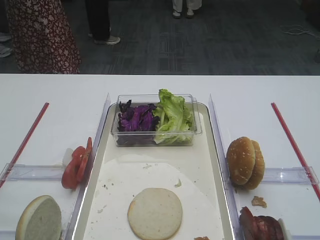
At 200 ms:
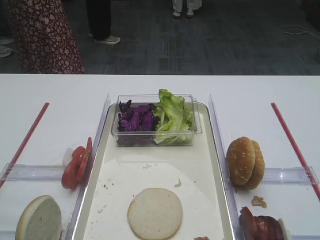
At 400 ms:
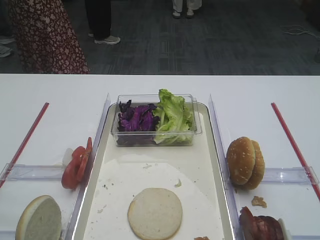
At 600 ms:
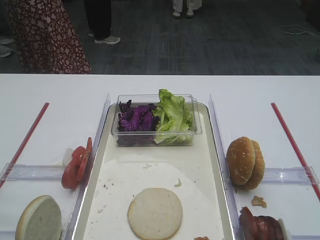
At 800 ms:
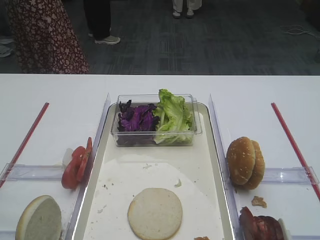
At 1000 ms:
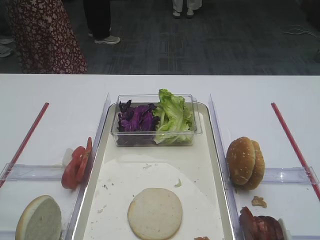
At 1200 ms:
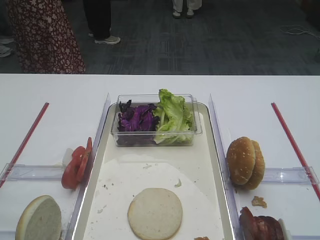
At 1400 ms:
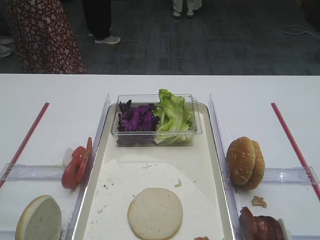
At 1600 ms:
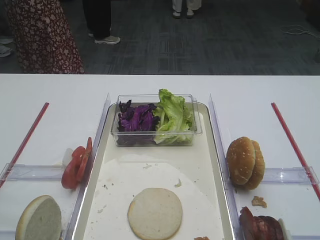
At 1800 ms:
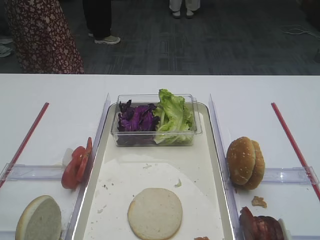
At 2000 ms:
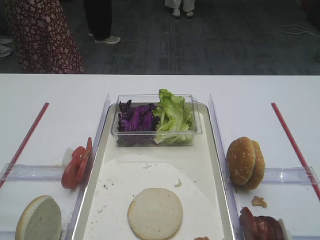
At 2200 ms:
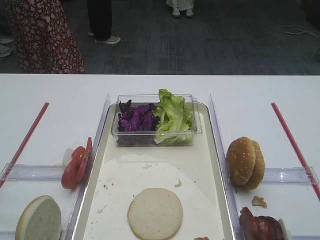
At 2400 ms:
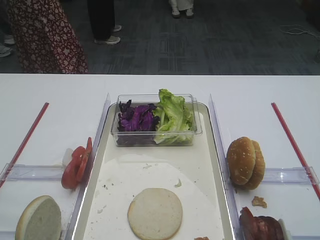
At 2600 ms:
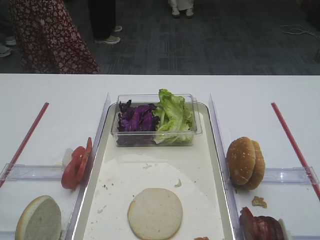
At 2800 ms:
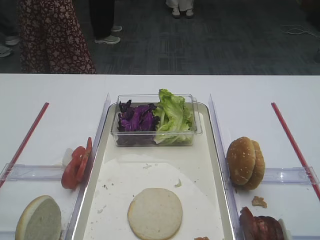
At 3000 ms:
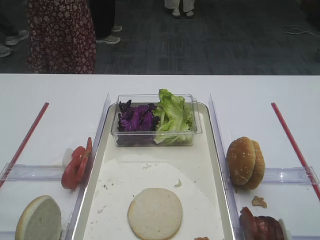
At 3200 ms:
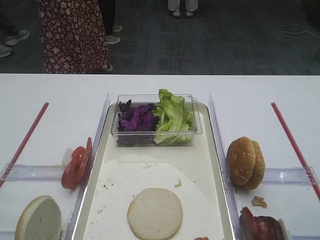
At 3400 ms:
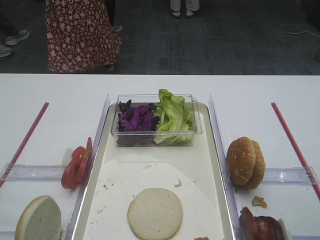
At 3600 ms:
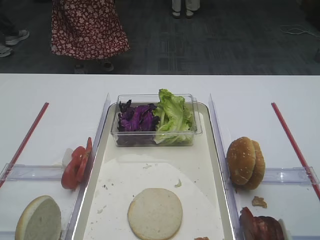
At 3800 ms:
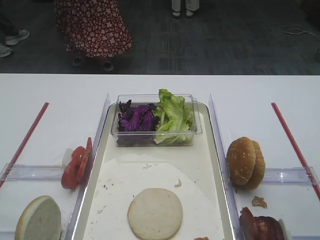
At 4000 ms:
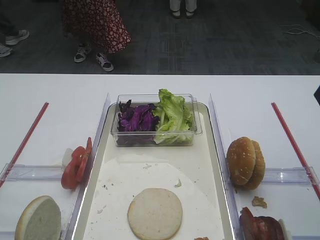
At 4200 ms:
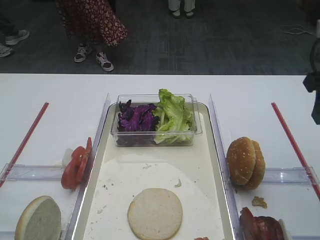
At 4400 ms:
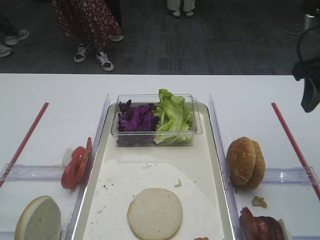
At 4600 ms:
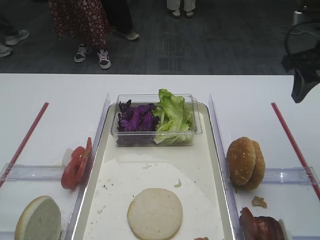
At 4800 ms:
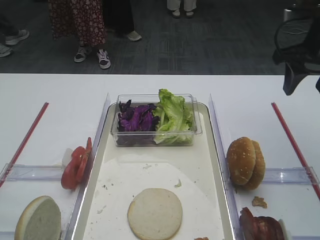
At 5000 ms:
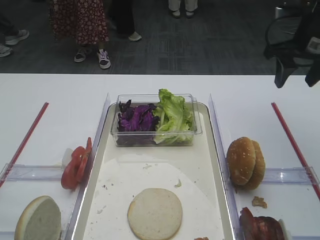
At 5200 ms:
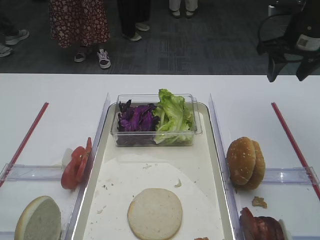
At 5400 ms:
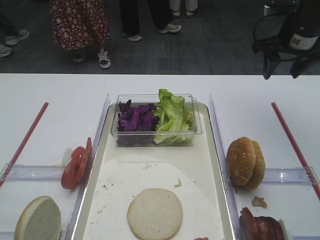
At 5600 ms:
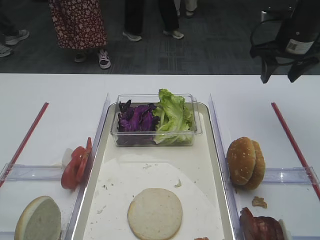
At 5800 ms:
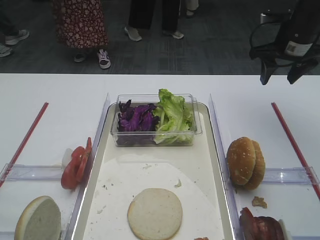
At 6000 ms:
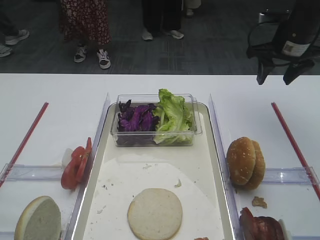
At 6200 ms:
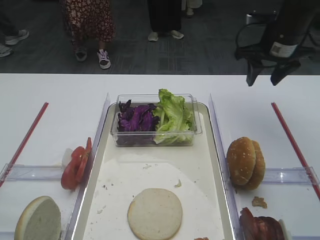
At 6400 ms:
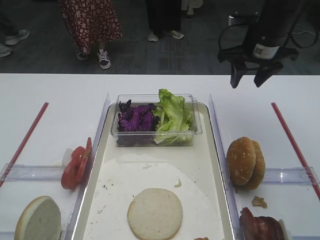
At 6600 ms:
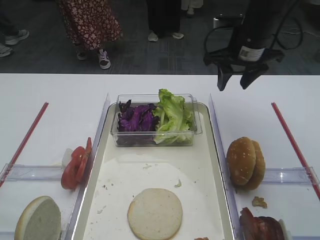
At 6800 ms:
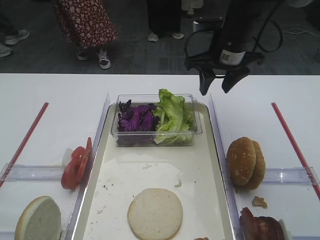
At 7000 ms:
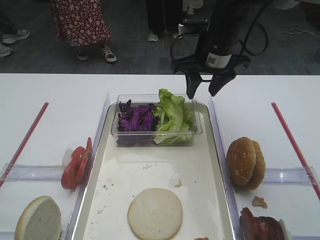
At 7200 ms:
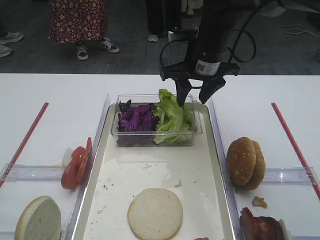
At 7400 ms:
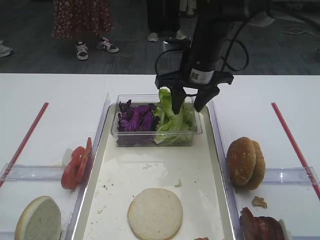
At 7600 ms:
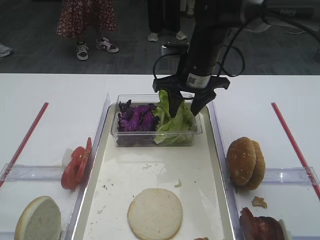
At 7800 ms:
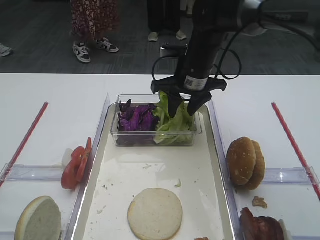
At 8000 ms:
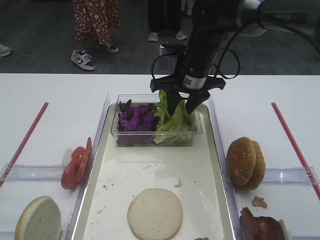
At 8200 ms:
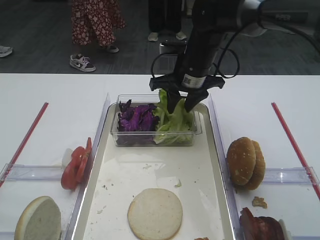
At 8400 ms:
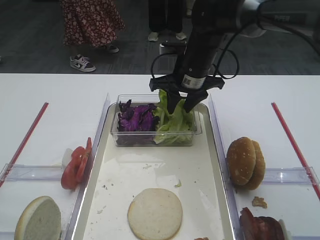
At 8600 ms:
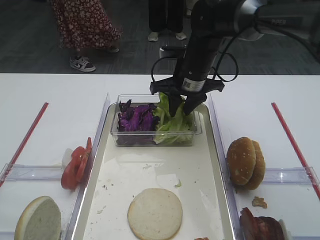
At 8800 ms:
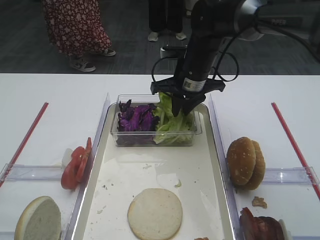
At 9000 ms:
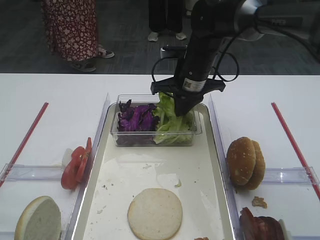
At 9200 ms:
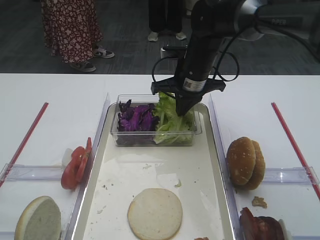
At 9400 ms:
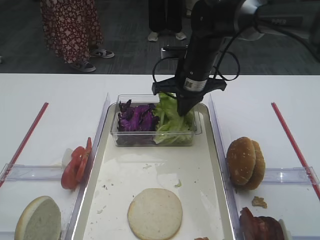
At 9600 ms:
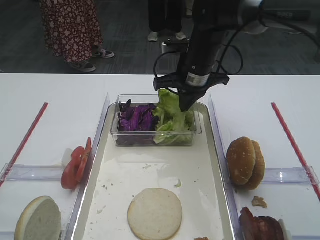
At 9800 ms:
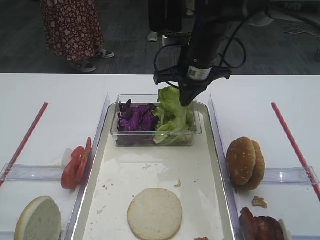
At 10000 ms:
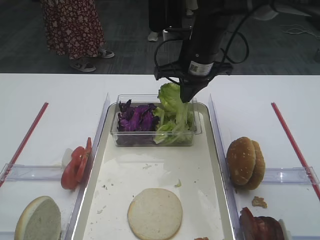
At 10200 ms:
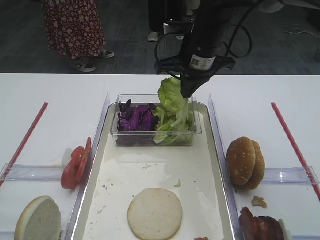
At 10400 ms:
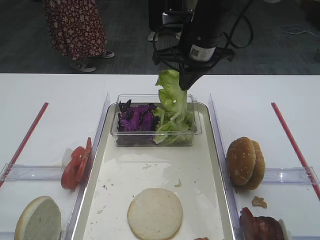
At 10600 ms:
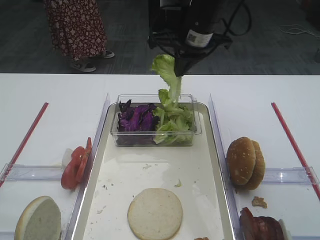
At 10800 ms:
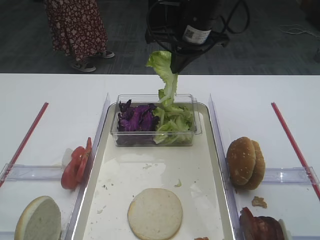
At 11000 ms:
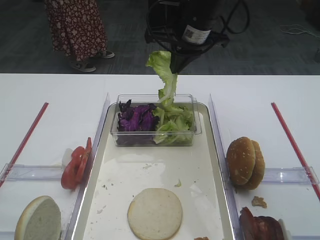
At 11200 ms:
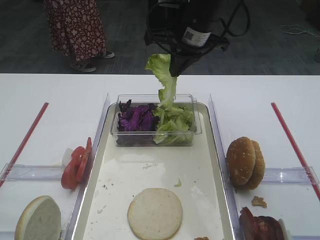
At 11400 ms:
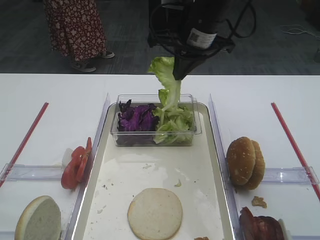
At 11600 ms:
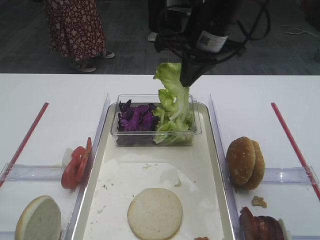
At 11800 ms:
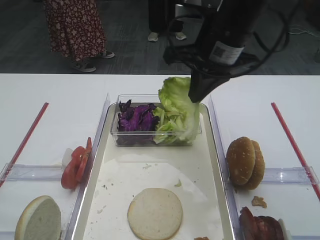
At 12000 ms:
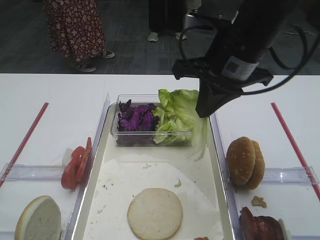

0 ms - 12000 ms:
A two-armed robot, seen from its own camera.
Step, 0 ms - 10600 ms: Pick up the lettuce leaf with the right gripper.
3000 ms - 4400 ms: The right gripper shifts approximately 20 cm forward.
4400 ms - 6000 ms: The right gripper is displaced forward by about 15 cm.
6000 ms - 7600 ms: The right gripper heads to the left, covering some 20 cm.
7600 ms - 9000 ms: The right gripper closes up.
9000 ms - 10400 ms: The right gripper moves upward, about 5 cm.
10400 ms - 12000 ms: The right gripper heads backward, covering some 10 cm.

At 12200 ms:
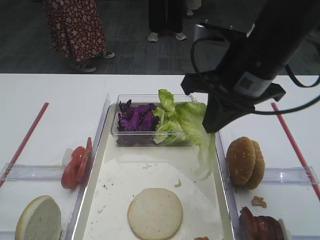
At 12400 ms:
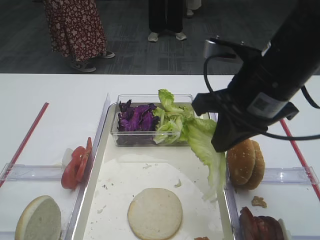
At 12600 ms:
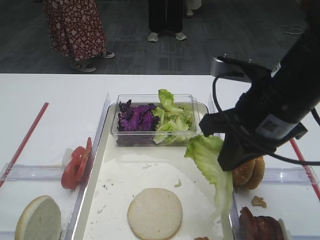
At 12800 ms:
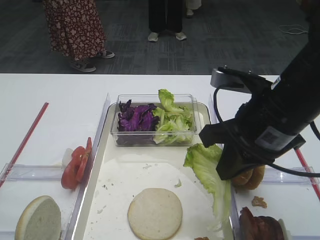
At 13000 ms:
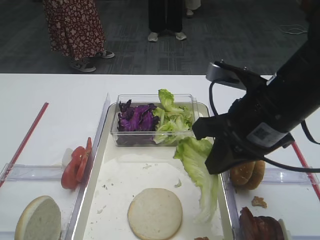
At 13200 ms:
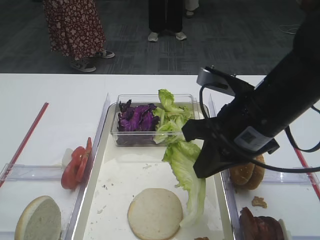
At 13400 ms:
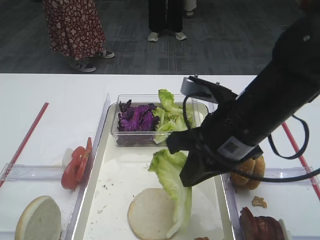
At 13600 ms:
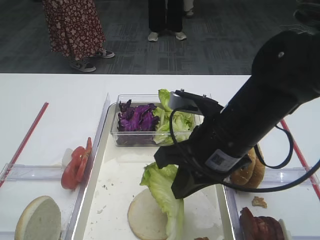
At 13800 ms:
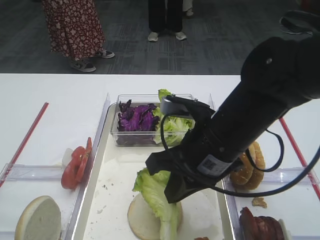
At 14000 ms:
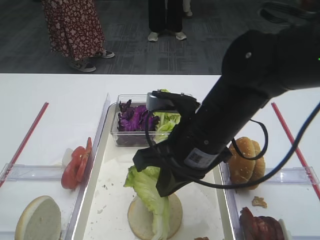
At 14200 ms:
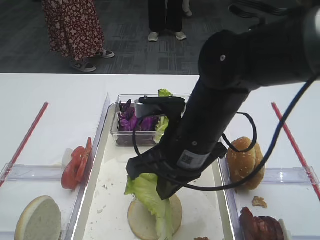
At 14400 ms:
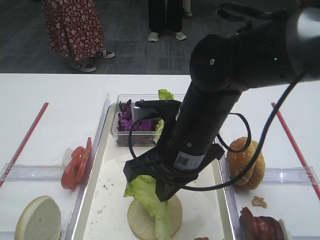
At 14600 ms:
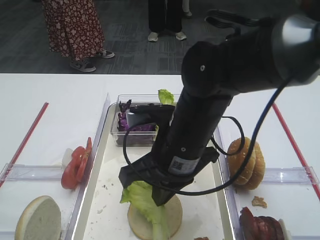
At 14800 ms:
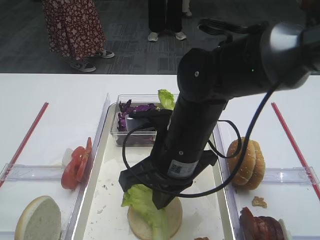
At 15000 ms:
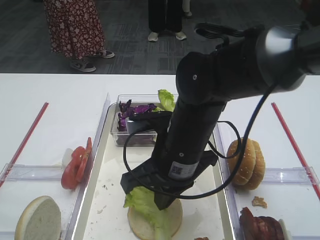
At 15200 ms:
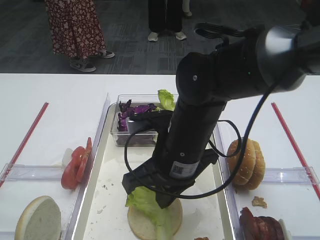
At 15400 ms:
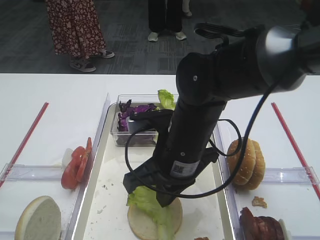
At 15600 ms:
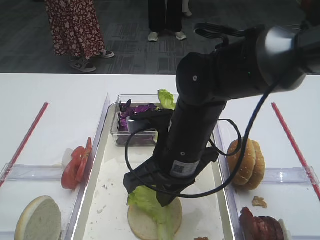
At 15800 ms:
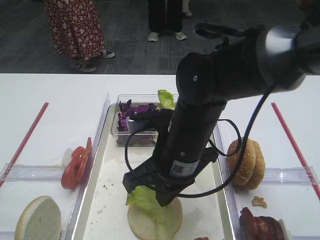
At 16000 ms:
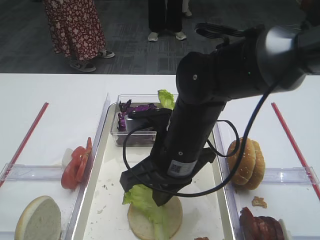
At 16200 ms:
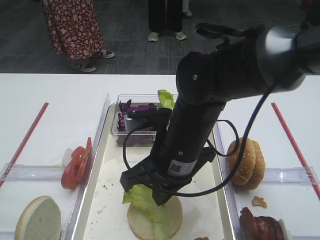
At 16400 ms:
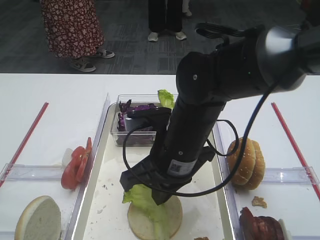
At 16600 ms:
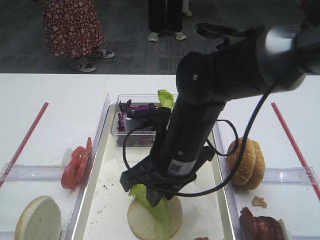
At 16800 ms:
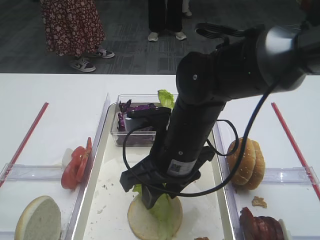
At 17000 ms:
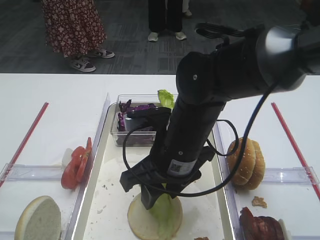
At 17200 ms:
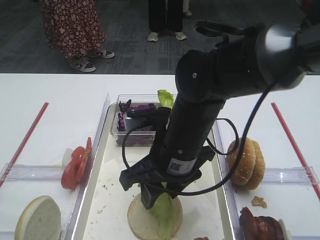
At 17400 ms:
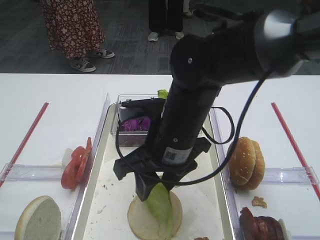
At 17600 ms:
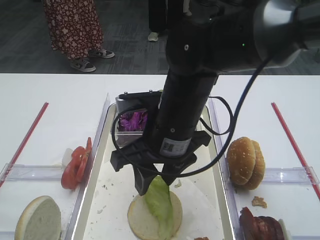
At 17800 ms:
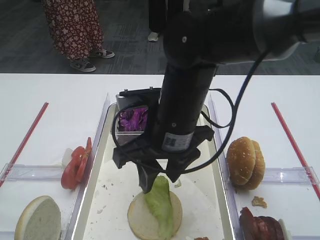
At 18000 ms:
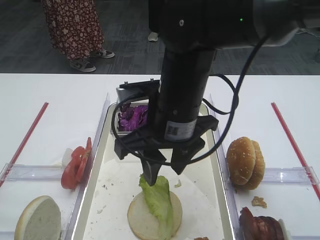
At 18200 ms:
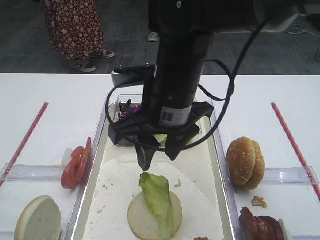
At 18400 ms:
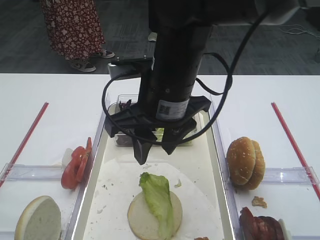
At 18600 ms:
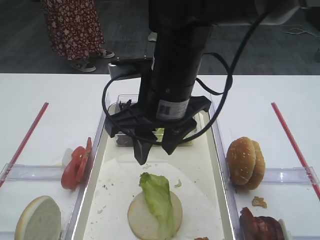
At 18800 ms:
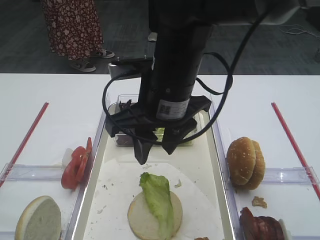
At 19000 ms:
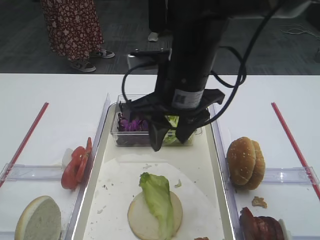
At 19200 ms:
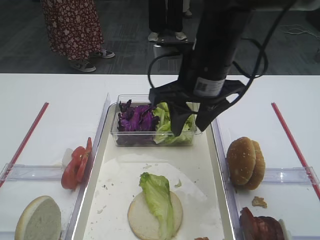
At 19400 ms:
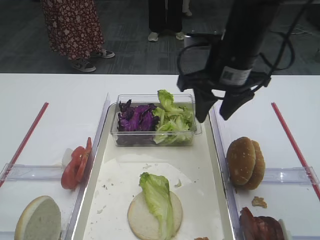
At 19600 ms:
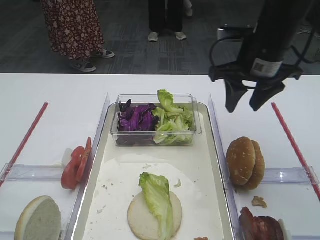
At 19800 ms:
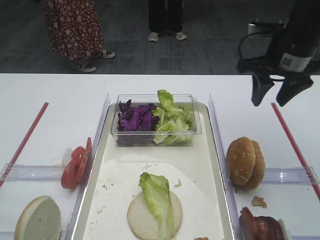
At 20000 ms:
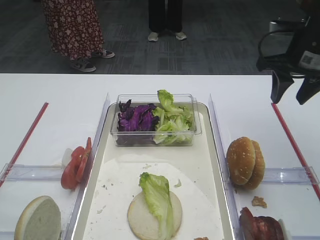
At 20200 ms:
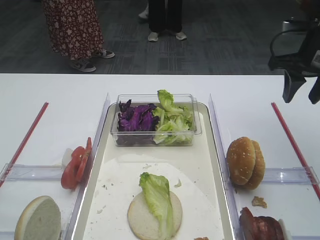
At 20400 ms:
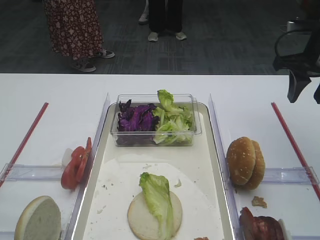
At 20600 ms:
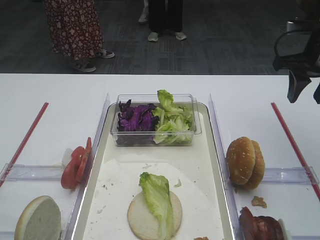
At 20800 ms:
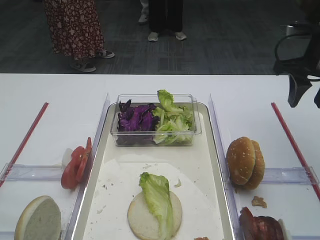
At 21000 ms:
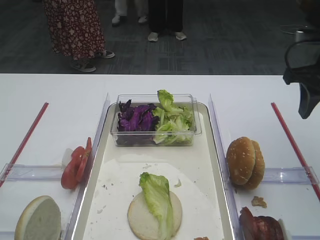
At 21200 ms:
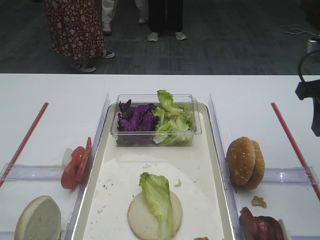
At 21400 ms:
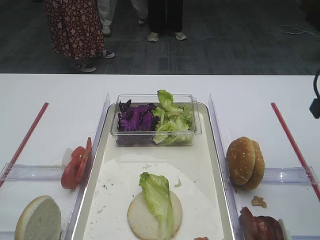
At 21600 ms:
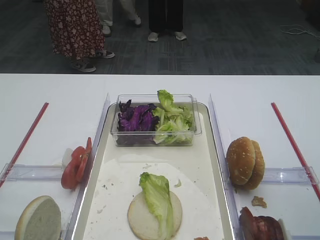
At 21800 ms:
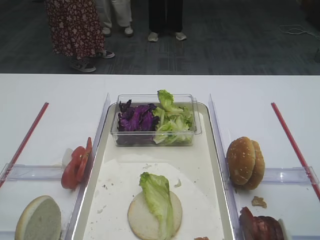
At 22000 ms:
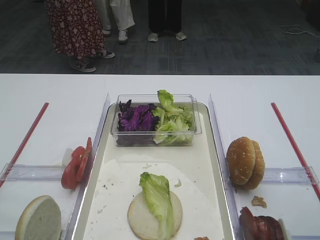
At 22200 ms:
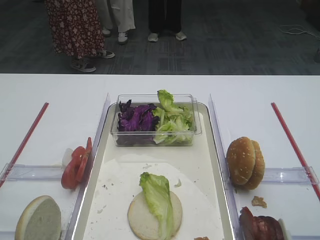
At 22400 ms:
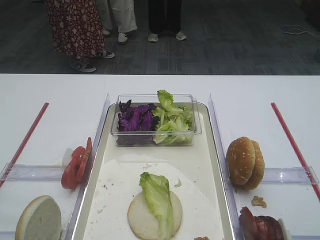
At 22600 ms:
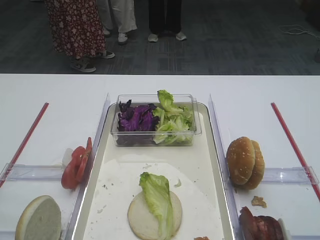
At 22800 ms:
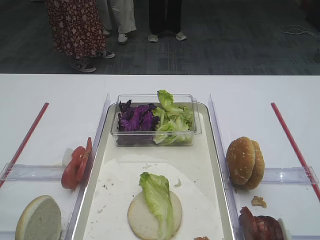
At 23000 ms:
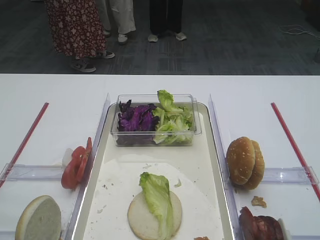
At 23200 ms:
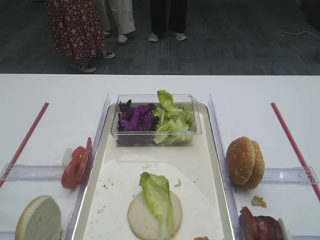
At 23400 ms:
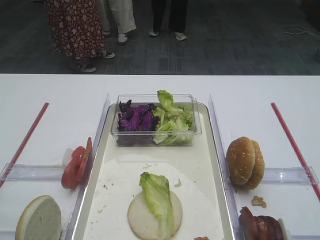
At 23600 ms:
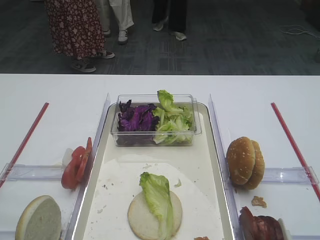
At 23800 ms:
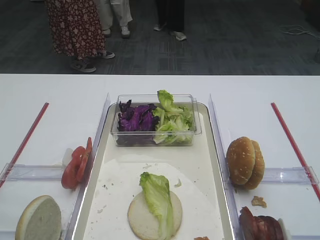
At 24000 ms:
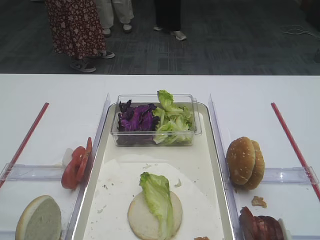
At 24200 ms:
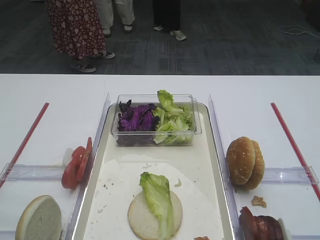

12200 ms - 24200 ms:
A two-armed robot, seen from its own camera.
Step, 12200 ms - 17000 ms: Place the lettuce leaf on the bread slice with the right gripper.
12200 ms - 13800 ms: The right gripper is displaced downward and backward by approximately 10 cm.
13800 ms - 15200 ms: The right gripper changes place by approximately 5 cm.
15200 ms - 16600 ms: Both grippers stay about where they are.
16600 ms - 18200 ms: The right gripper shifts about 5 cm upward.
18200 ms - 19800 ms: The right gripper shifts about 20 cm to the right and forward.
19800 ms - 21200 ms: The right gripper is displaced backward and to the right by roughly 10 cm.
21200 ms - 22600 ms: The right gripper is displaced backward by roughly 20 cm.
22600 ms - 24200 ms: The right gripper travels backward by about 10 cm.
